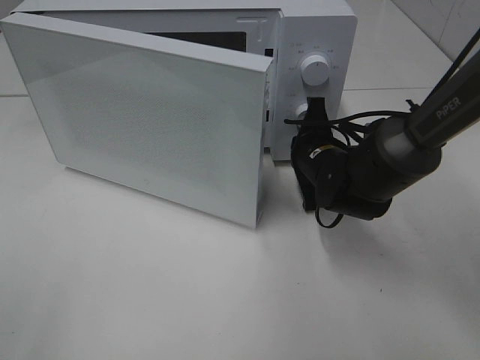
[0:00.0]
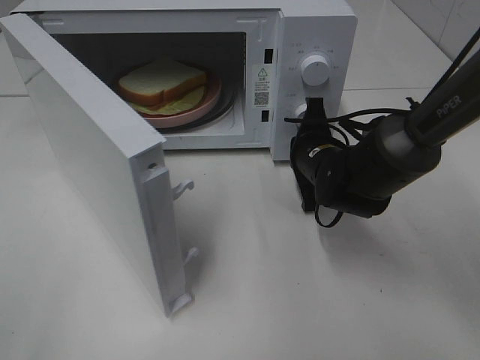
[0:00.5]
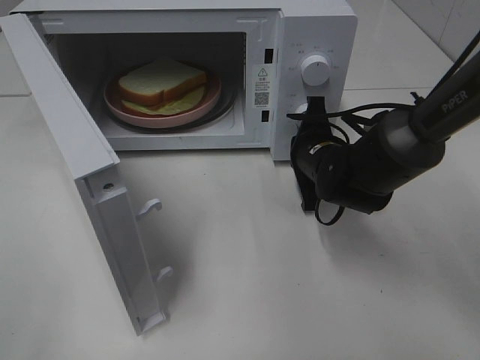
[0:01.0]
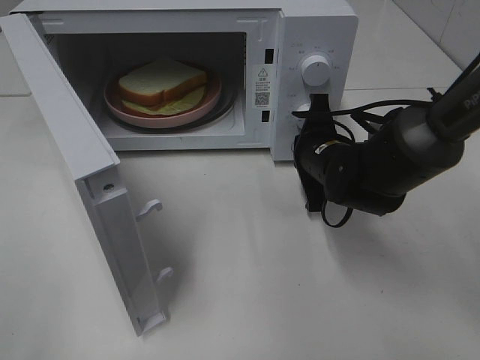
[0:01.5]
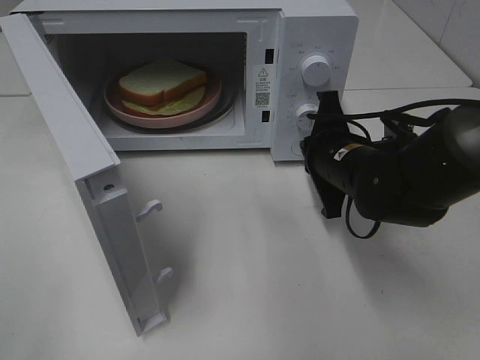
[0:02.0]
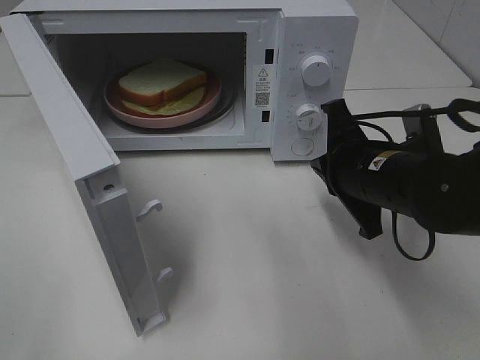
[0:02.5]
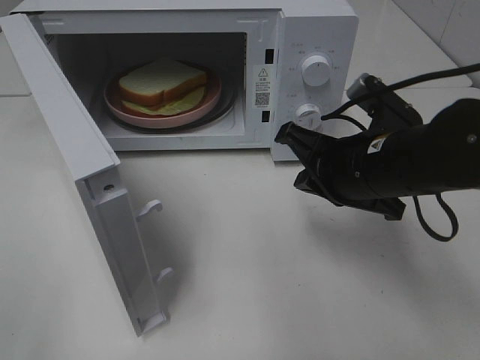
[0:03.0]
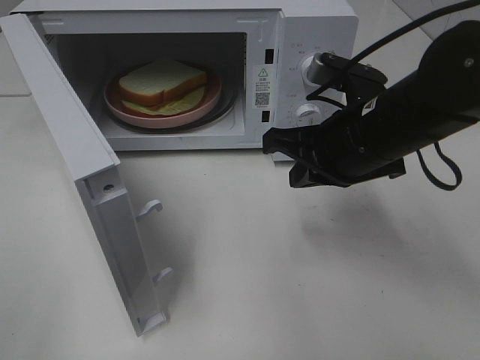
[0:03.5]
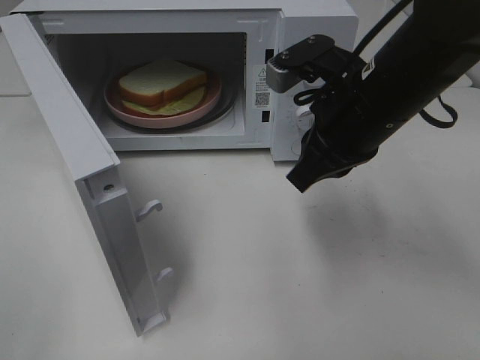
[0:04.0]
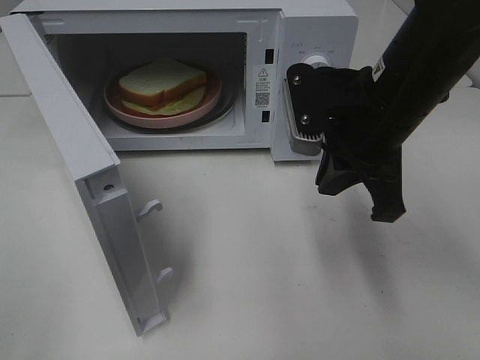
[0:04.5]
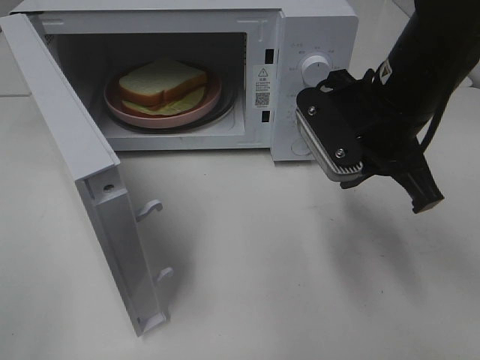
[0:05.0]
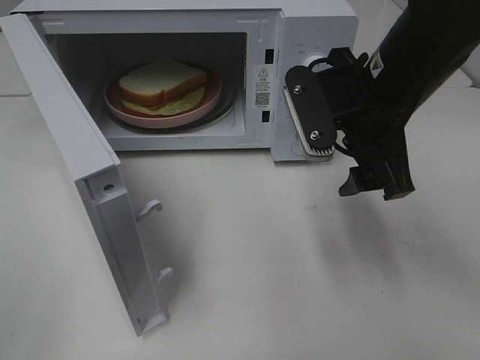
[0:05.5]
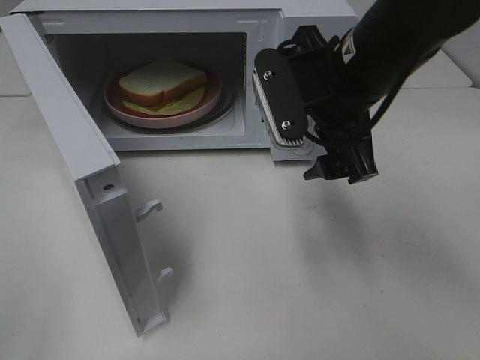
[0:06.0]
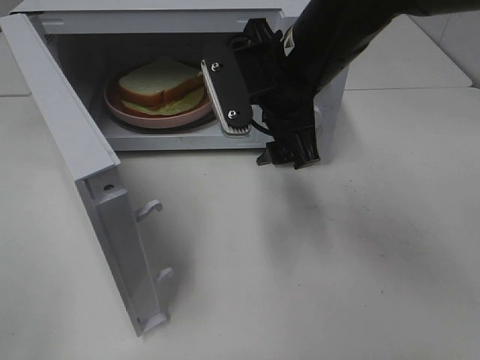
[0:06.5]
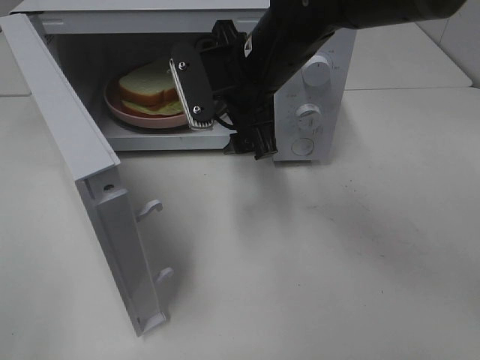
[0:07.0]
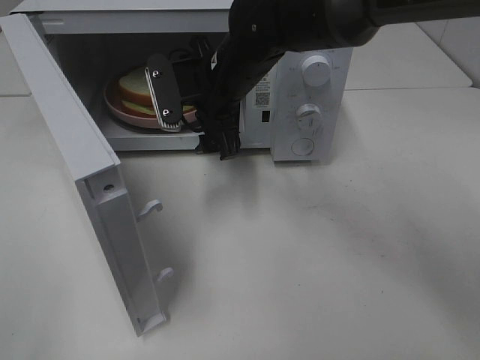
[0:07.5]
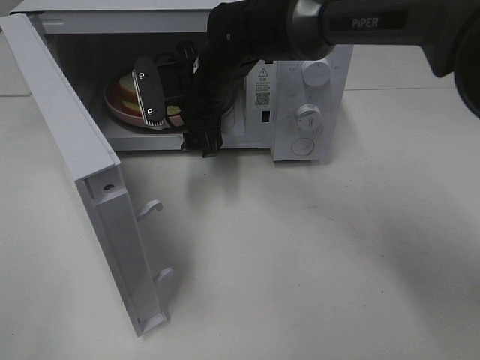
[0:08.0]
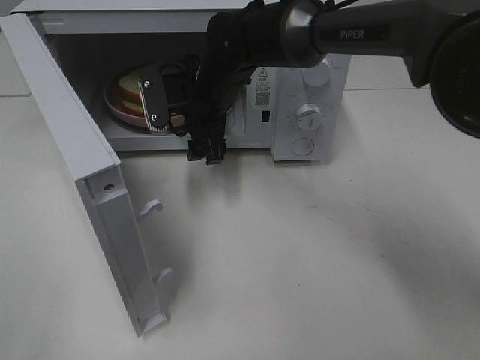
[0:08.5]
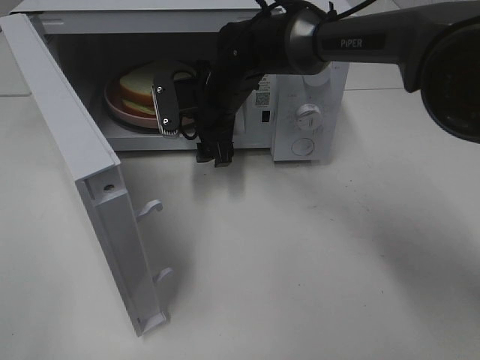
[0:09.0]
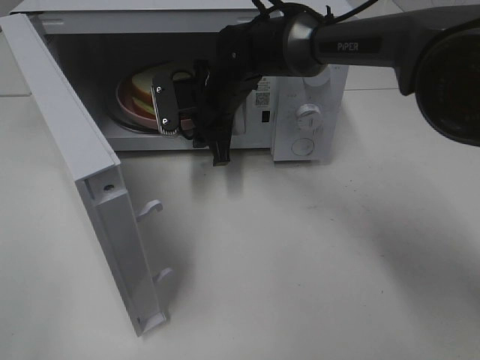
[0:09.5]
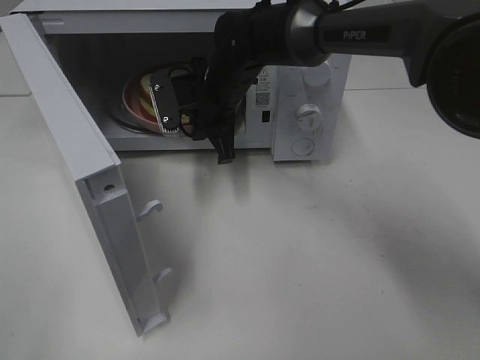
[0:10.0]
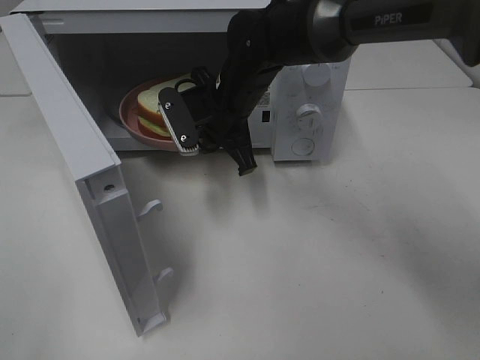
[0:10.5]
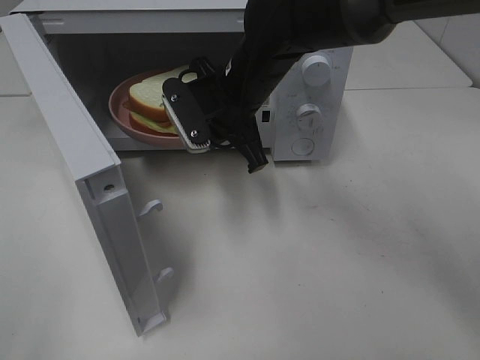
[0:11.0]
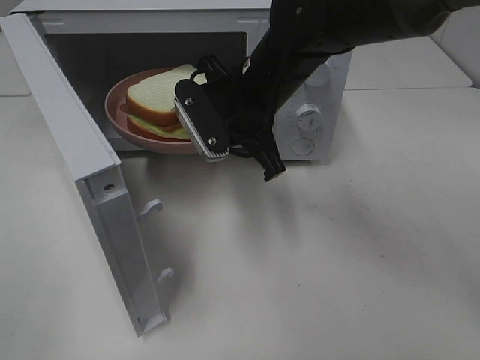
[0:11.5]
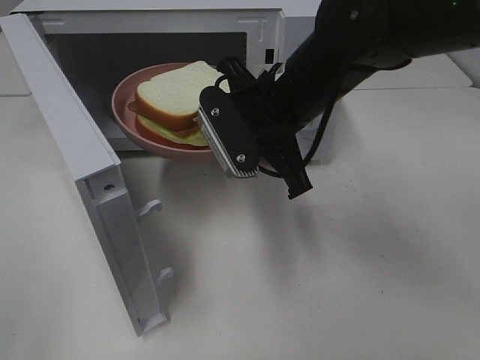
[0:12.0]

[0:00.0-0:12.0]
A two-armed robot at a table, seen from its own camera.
Task of the whole recording: Heat Sandwich.
Step, 2.0 to 9.5 s: Right hand: grab the plate with the sandwich.
0.0 to 2.0 s: The right gripper is displaced backward by some 5 cm.
2.0 to 4.0 s: The right gripper heads upward, covering roughly 10 cm.
4.0 to 6.0 s: The right gripper opens its fingers.
6.0 to 8.0 s: The right gripper is displaced forward, to the left and downward by approximately 20 cm.
8.0 to 10.0 s: The right gripper closes up.
10.0 to 12.0 s: The right gripper shifts approximately 15 cm backward, to the right and upward.

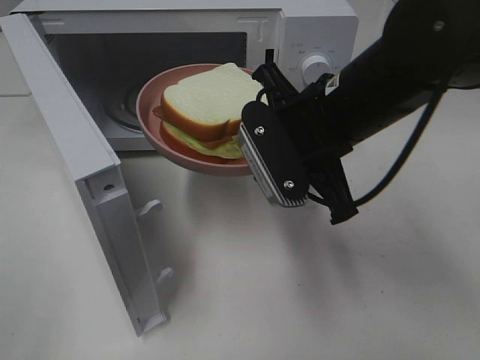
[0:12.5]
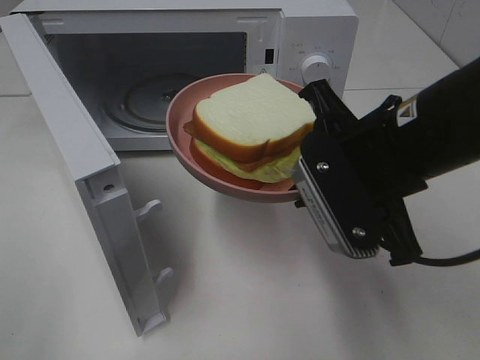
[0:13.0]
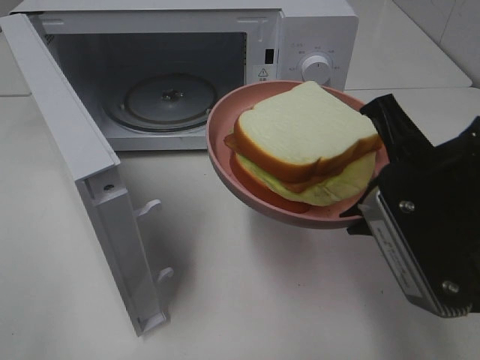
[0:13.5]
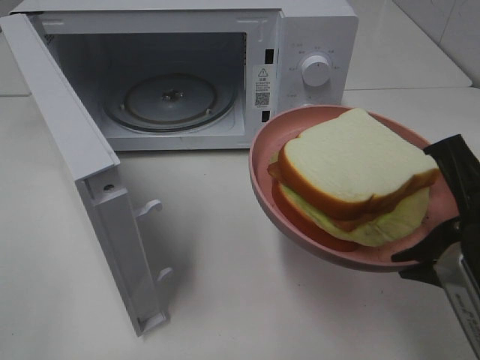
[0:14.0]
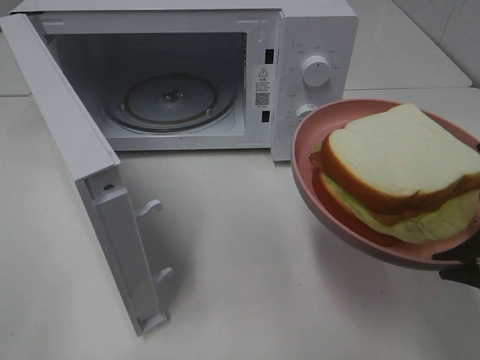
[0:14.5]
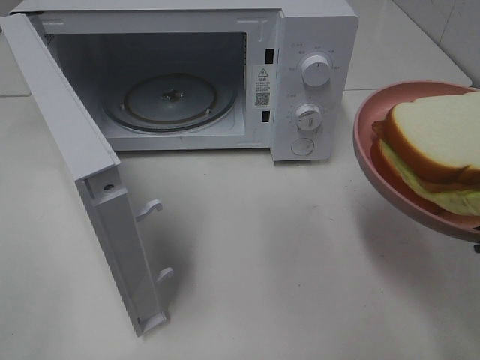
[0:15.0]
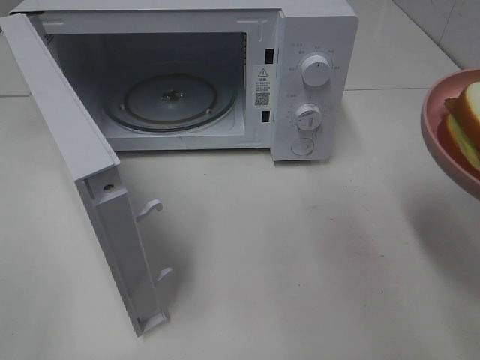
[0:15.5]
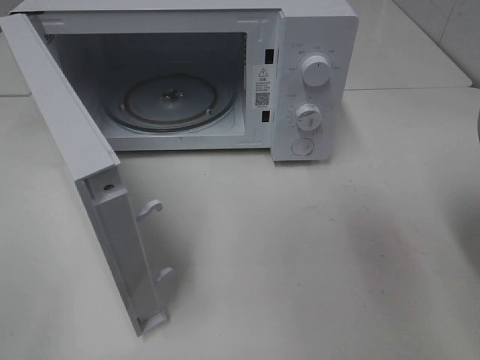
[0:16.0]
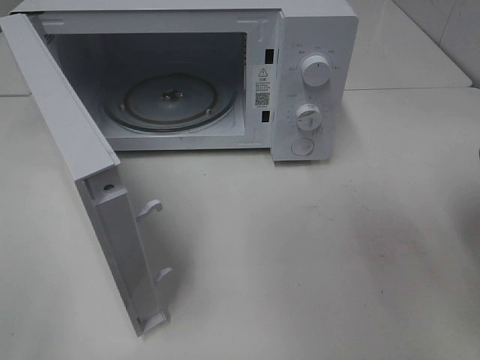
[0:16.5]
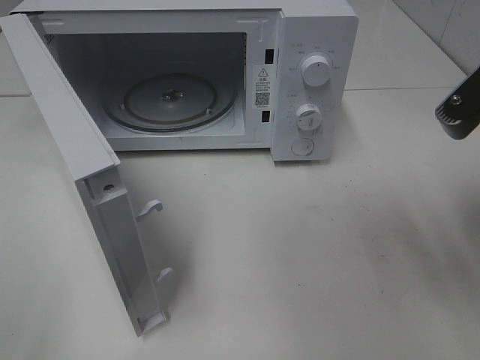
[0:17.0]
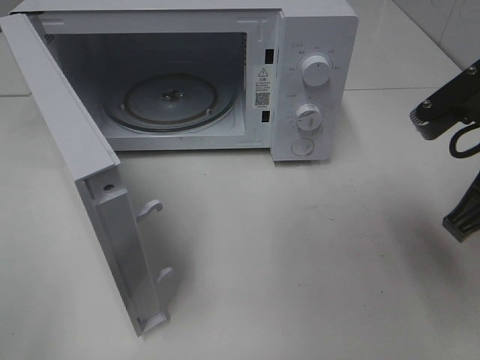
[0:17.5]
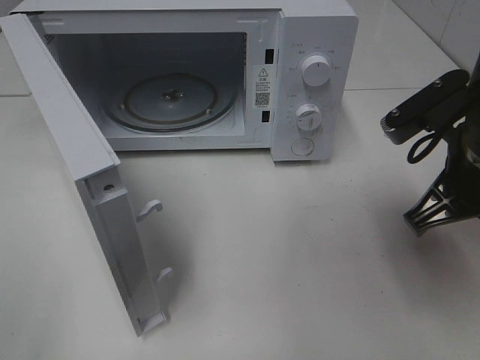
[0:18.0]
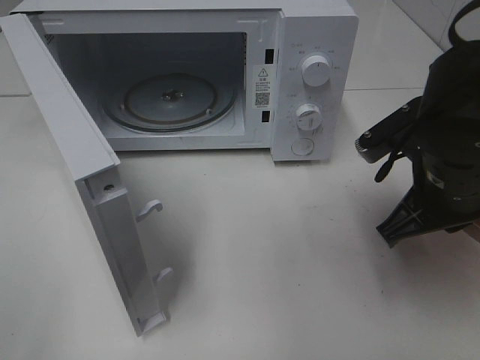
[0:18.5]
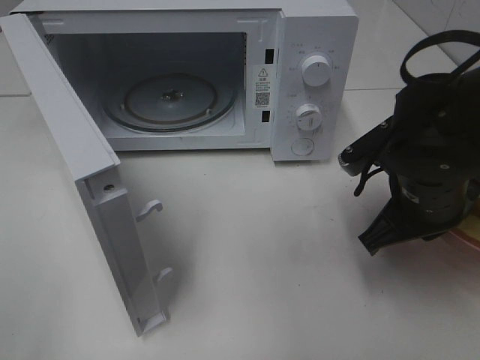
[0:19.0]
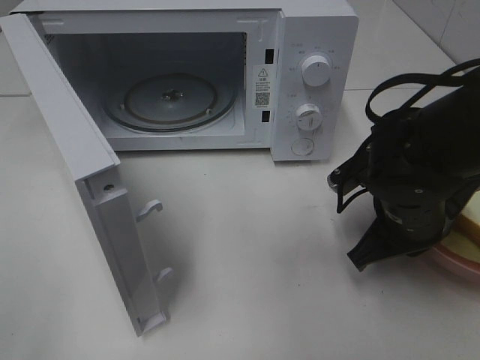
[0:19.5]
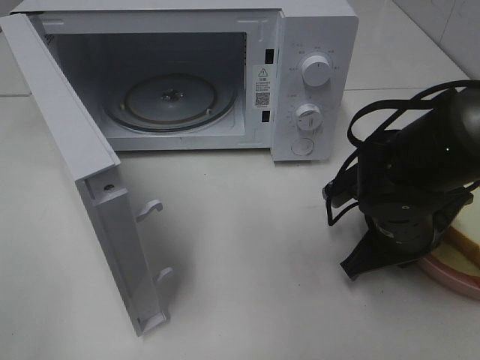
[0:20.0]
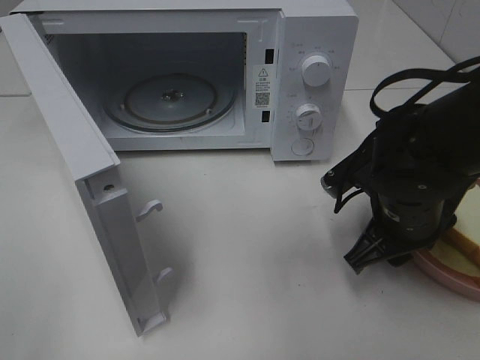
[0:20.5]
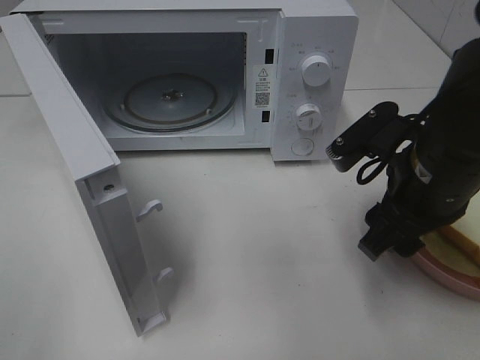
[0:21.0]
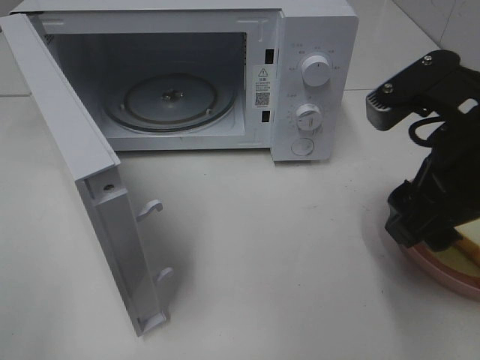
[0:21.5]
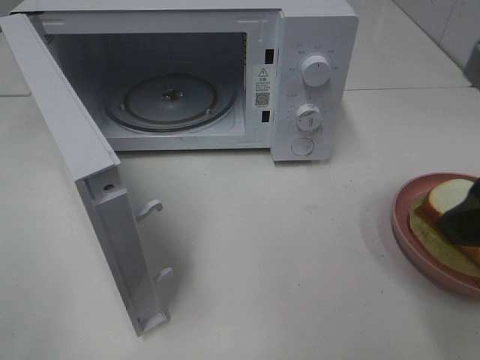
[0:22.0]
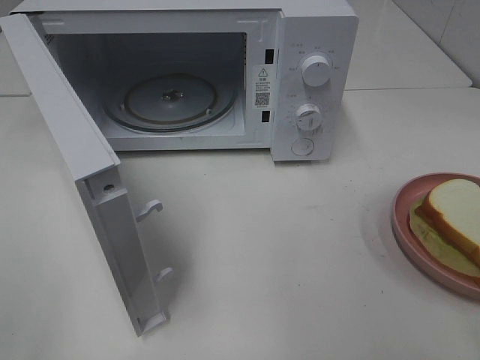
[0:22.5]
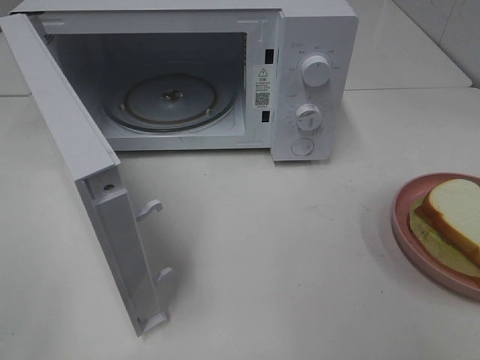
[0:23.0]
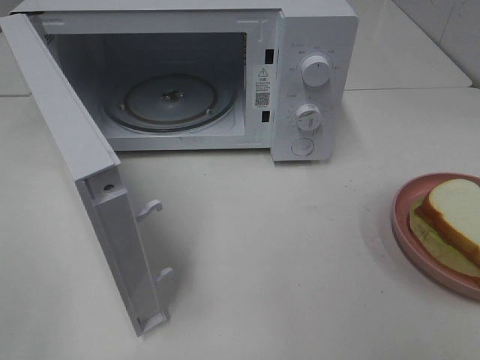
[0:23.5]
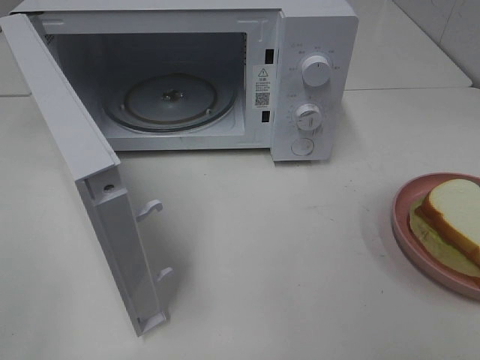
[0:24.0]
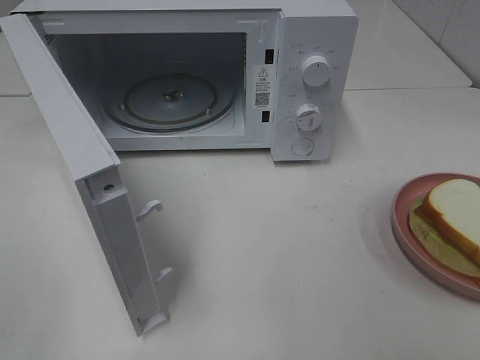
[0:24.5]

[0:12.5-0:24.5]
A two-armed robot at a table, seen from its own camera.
Task of the whole recording: Heat Sandwich.
Step, 12.5 to 21.0 s: Right hand: place the plate on the table.
12.5 to 14.5 s: The right gripper is displaced backward and to the right by roughly 20 cm.
16.5 to 18.5 s: The right gripper is displaced forward, downward and to the left by some 15 cm.
18.5 to 20.5 s: The right gripper travels downward by approximately 5 cm, and opens.
20.5 to 22.5 s: The right gripper heads upward and backward, covering roughly 25 cm.

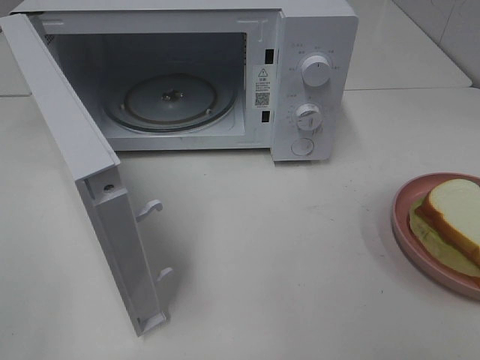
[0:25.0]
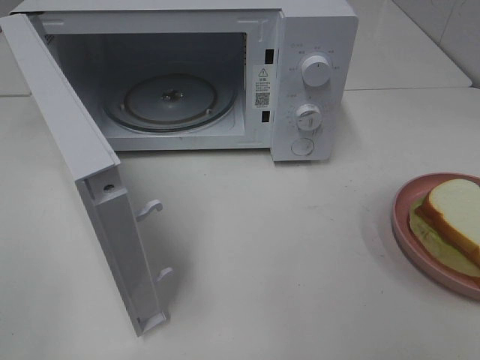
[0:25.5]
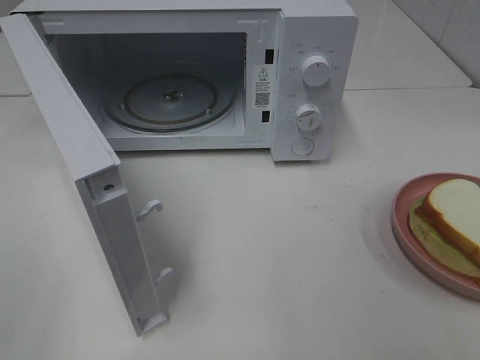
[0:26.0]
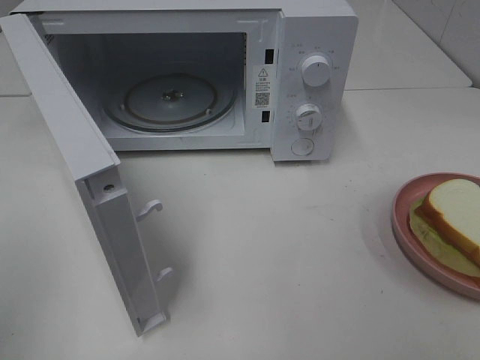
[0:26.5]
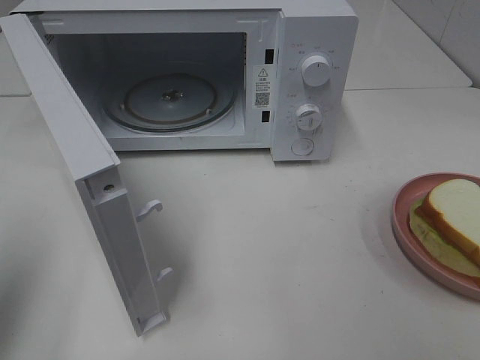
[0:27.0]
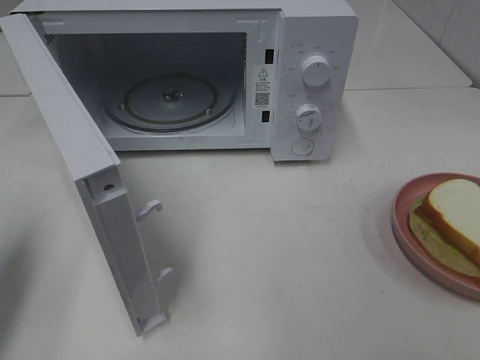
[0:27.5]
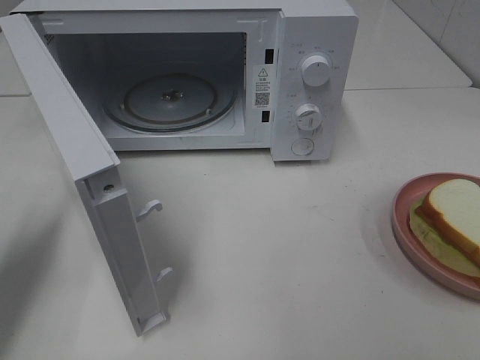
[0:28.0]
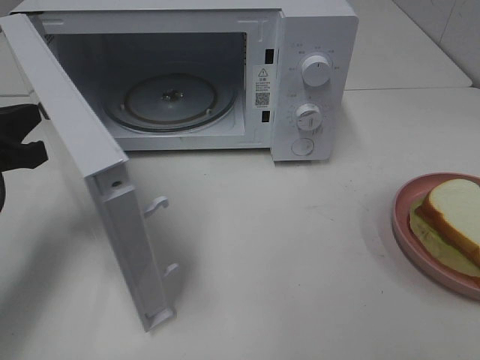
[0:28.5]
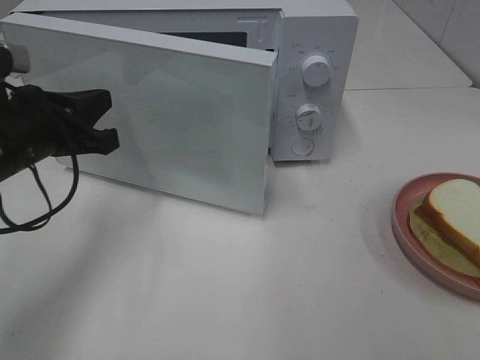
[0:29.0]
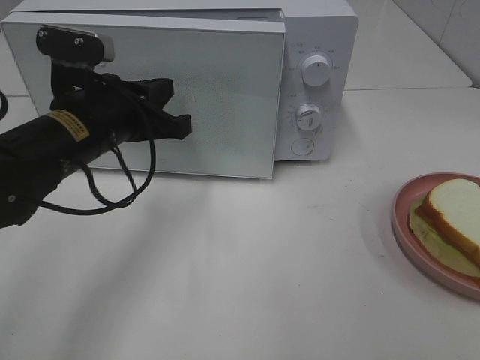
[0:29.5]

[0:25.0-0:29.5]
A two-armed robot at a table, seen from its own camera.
Task of the whole recording: Heat Sandwich.
25.0 to 27.0 s: The left gripper heads forward, covering roughly 15 cm, and closes.
27.0 to 29.5 s: The left gripper shifts roughly 25 cm to the right, forward and downward.
